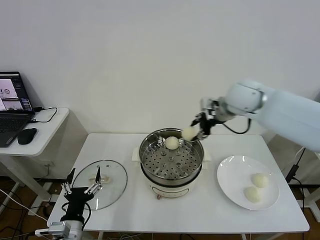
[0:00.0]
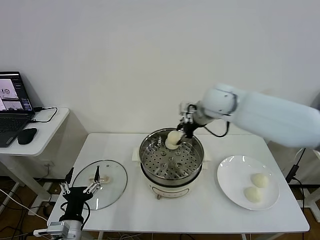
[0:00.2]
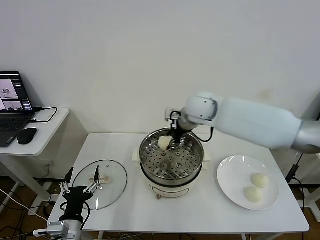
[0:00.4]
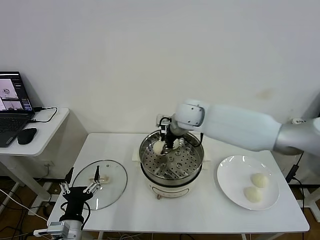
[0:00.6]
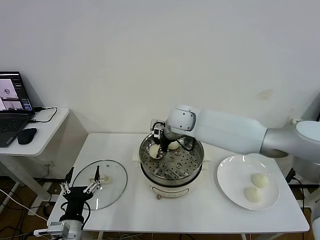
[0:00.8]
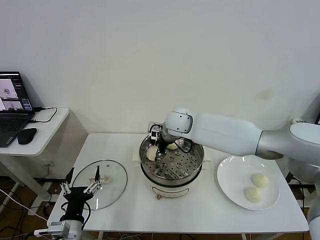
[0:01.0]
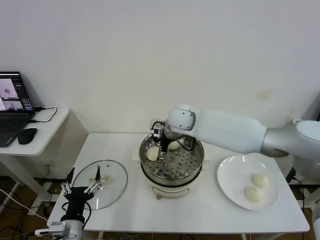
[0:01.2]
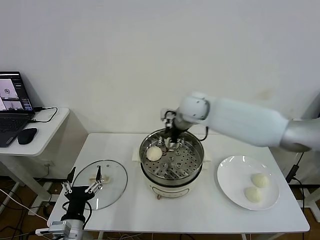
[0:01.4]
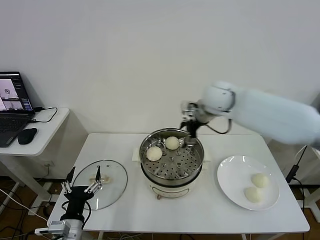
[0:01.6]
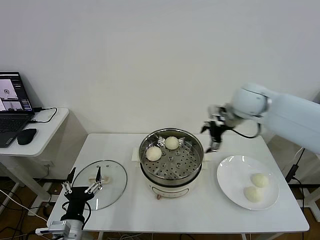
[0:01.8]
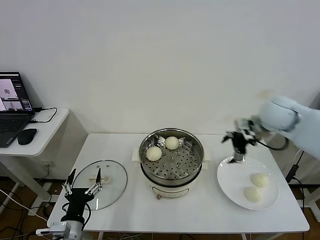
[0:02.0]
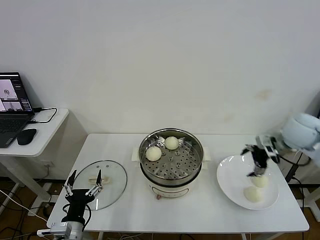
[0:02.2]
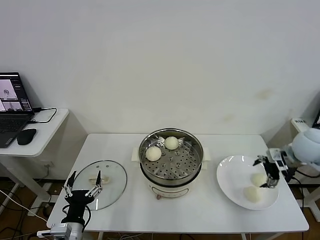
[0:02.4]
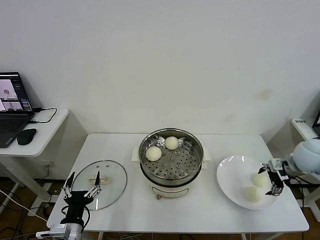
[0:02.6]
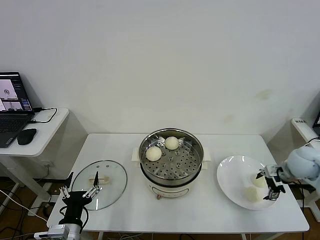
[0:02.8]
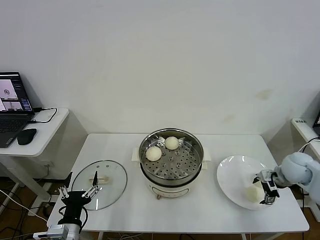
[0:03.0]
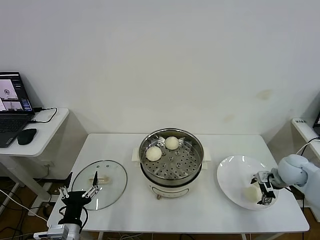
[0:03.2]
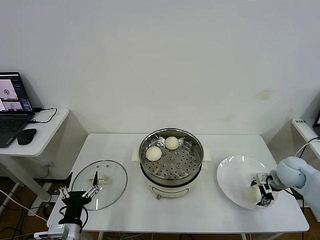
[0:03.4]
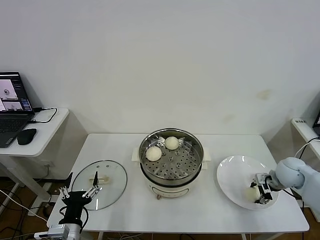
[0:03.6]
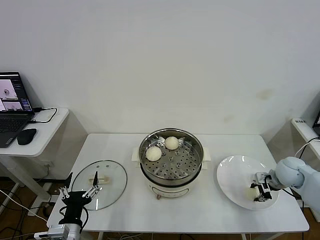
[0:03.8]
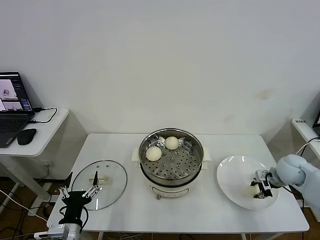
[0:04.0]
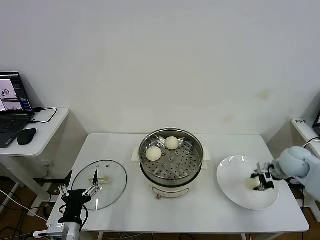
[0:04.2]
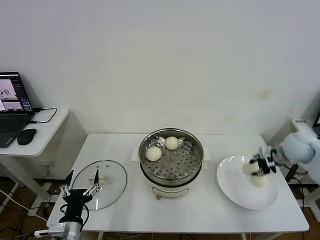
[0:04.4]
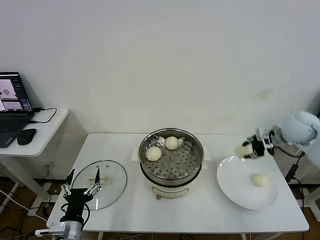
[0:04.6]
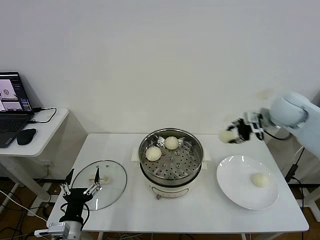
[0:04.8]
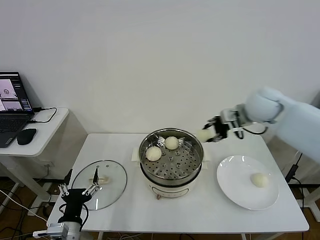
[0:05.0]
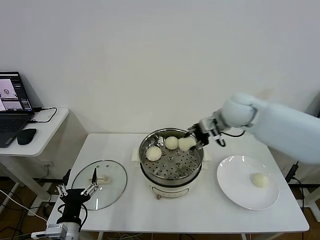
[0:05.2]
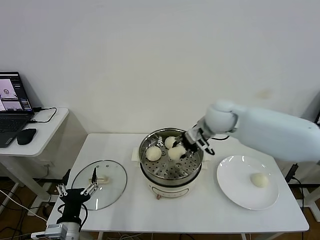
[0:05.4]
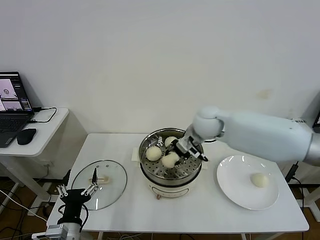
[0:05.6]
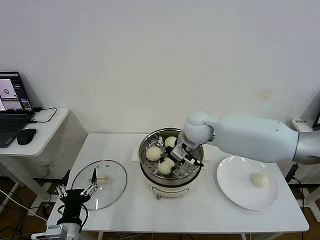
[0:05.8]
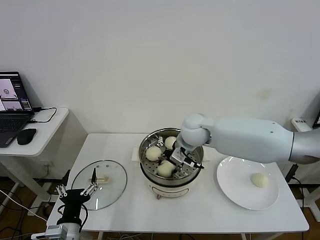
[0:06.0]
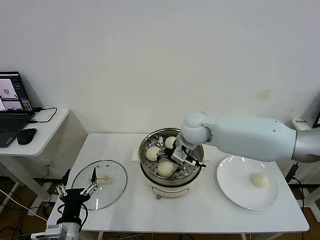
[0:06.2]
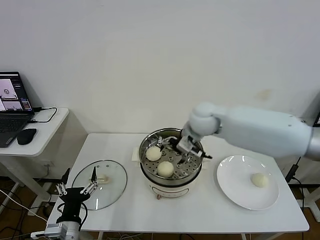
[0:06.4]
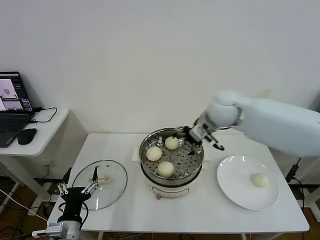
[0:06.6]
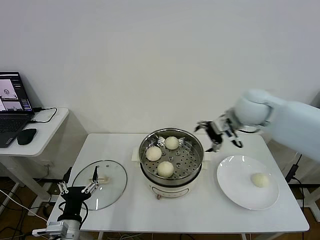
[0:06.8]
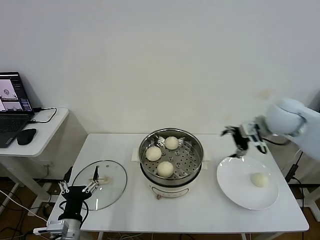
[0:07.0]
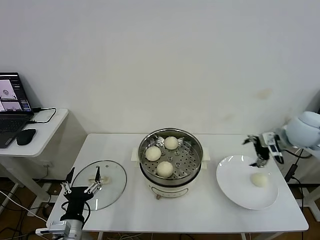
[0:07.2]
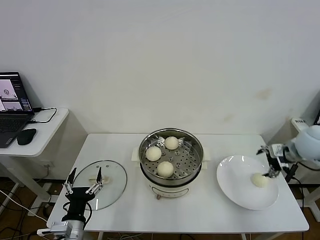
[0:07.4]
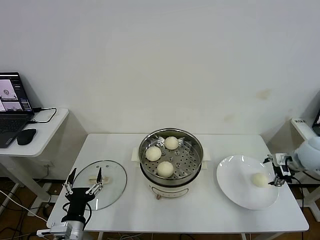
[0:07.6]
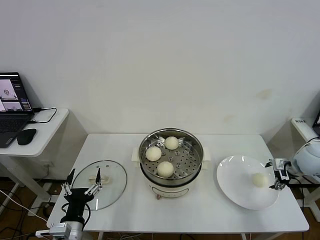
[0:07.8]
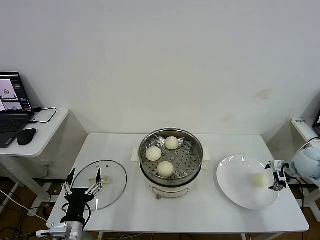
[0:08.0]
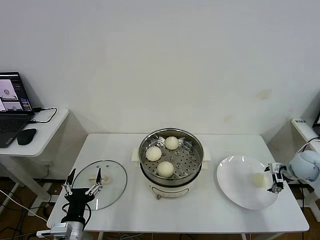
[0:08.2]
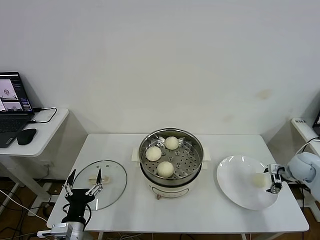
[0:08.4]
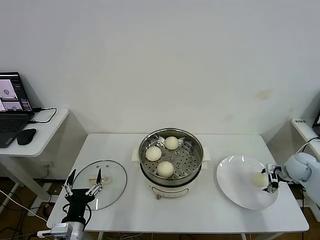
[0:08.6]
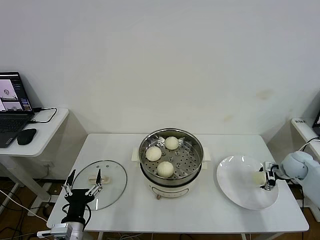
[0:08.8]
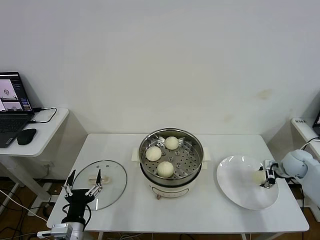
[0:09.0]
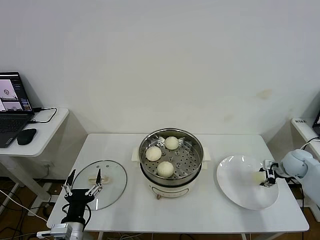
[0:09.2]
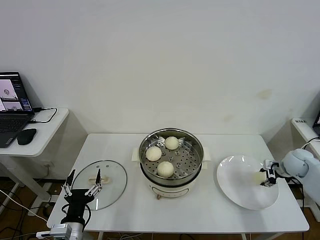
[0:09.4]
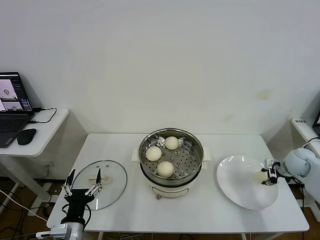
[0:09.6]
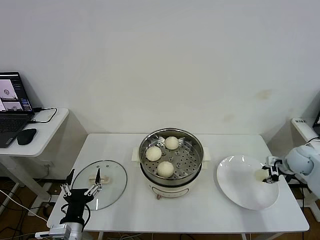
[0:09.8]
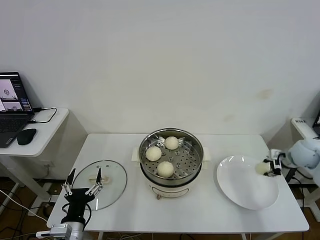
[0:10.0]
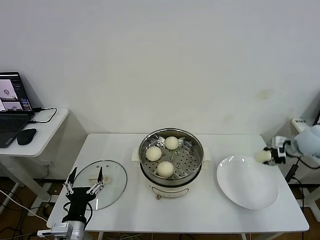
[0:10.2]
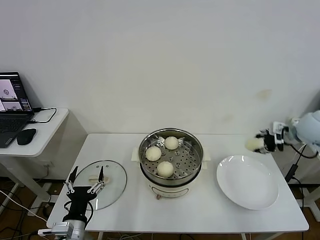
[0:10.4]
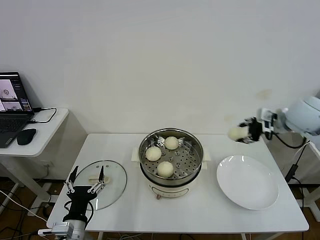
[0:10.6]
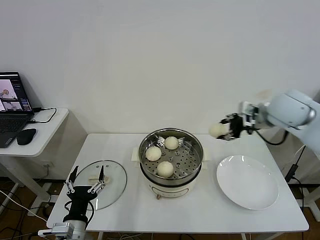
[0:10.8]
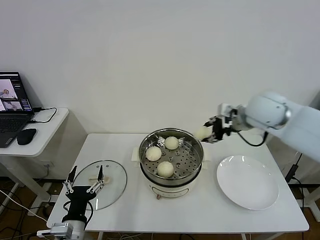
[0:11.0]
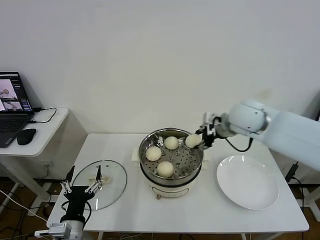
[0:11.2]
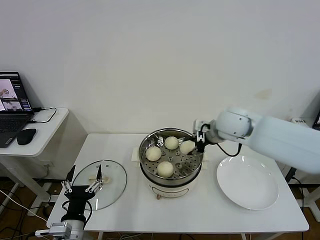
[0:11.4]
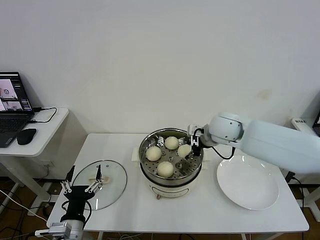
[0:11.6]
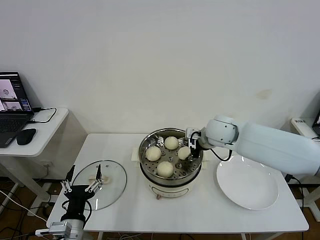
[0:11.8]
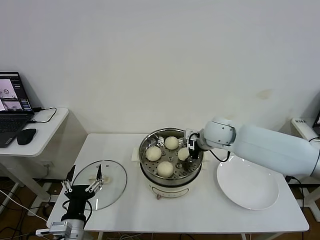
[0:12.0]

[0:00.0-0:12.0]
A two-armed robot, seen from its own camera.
Step, 0:01.2 to 0:03.6: Grasp the baozi in the plate with right gripper.
Step, 0:03.8 to 0:06.2: Place the baozi on the steamer with right gripper.
Step, 0:06.4 to 0:09.2: Grasp the baozi in the plate with right gripper.
0:00.0 to 0:01.6: The right gripper travels to the left and back again, roughly 15 cm each way, and opens up.
0:01.6 to 0:03.0: The right gripper travels to the right, downward and backward by some 35 cm.
0:03.0 to 0:04.4: The right gripper travels upward by roughly 10 cm, and closes.
0:04.4 to 0:06.0: The right gripper is displaced to the left by about 35 cm, and opens up.
0:06.0 to 0:07.6: The right gripper moves to the right, about 35 cm, and opens.
0:07.6 to 0:09.0: The right gripper is displaced downward by about 10 cm, and closes.
0:09.0 to 0:10.4: The right gripper travels upward by some 20 cm, and closes.
0:10.4 to 0:12.0: The right gripper is displaced to the left by approximately 25 cm.

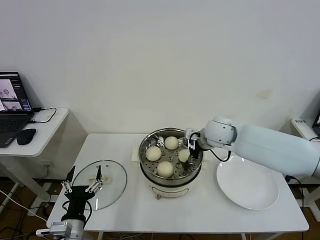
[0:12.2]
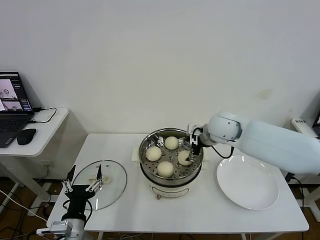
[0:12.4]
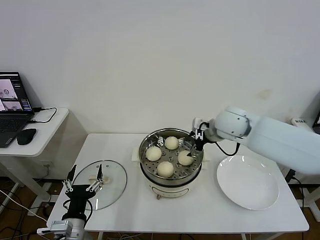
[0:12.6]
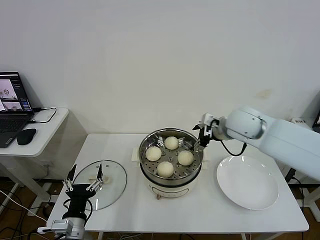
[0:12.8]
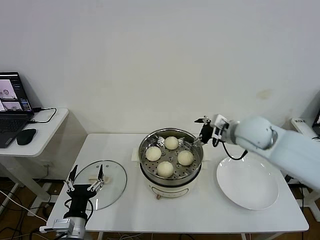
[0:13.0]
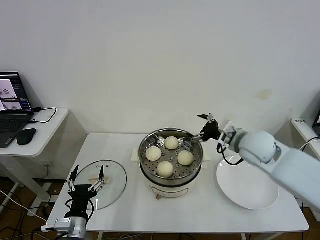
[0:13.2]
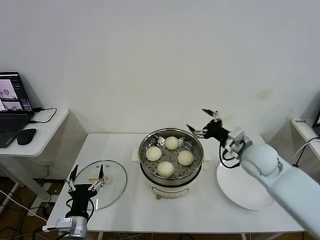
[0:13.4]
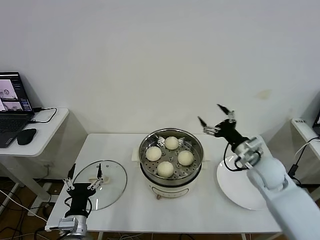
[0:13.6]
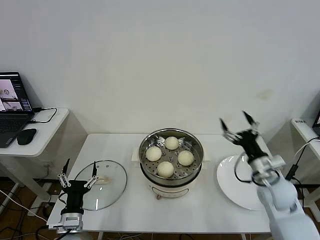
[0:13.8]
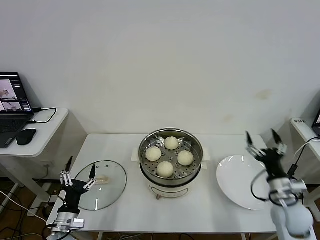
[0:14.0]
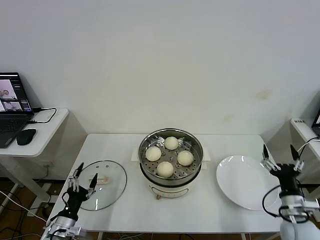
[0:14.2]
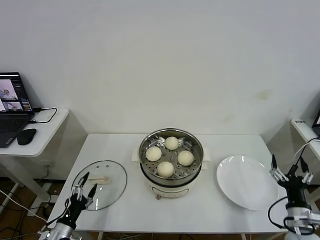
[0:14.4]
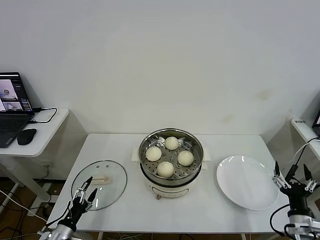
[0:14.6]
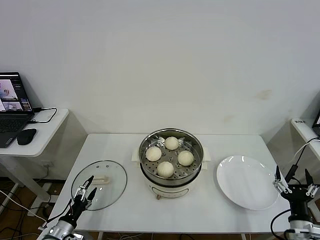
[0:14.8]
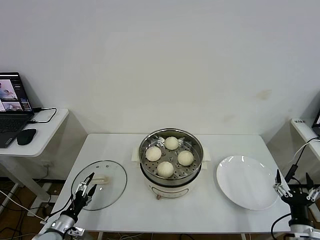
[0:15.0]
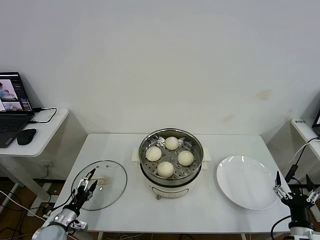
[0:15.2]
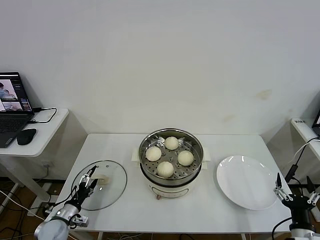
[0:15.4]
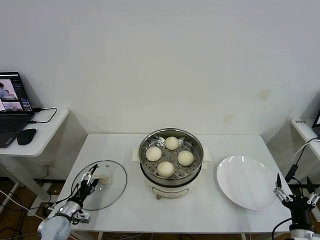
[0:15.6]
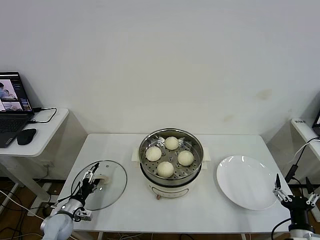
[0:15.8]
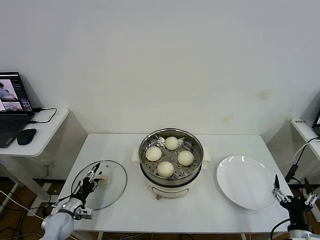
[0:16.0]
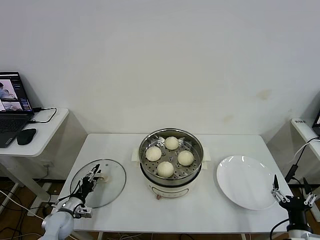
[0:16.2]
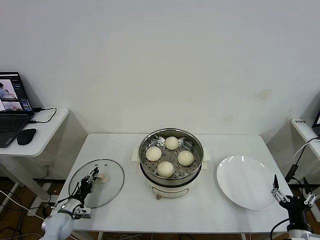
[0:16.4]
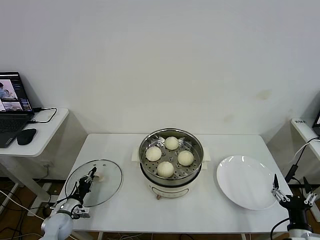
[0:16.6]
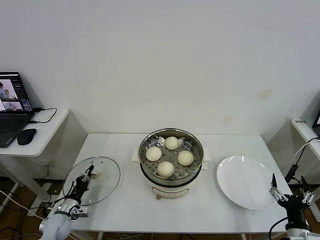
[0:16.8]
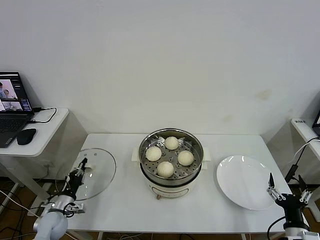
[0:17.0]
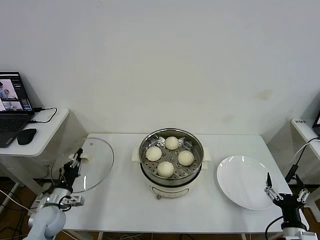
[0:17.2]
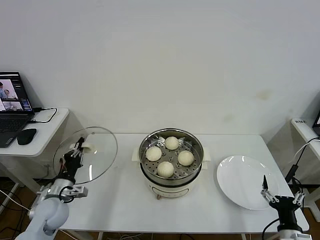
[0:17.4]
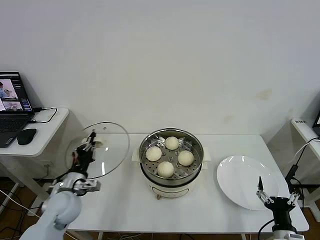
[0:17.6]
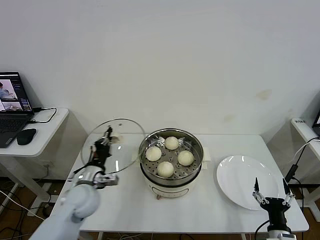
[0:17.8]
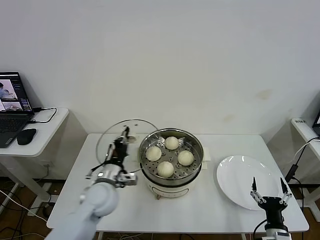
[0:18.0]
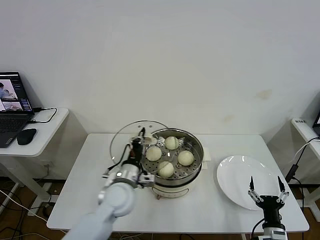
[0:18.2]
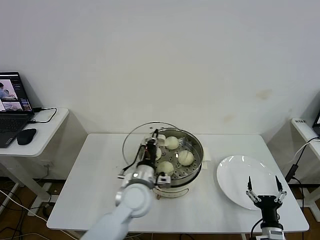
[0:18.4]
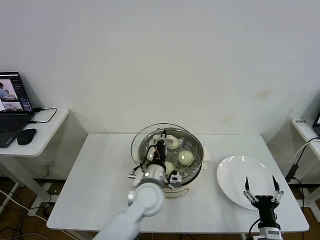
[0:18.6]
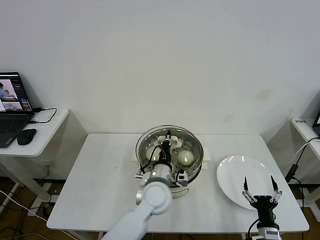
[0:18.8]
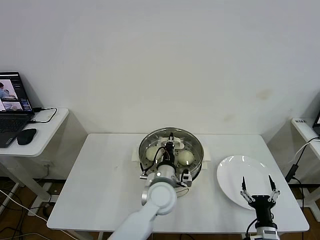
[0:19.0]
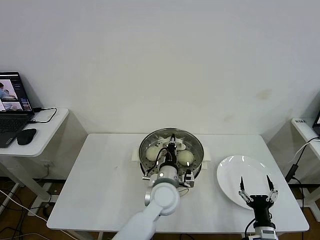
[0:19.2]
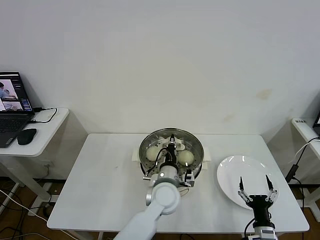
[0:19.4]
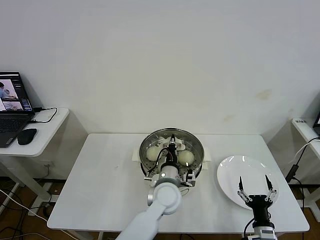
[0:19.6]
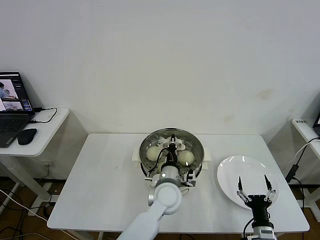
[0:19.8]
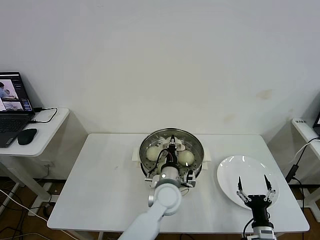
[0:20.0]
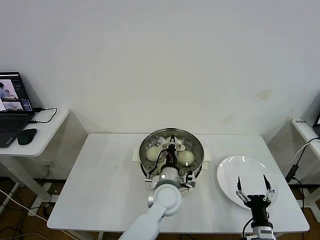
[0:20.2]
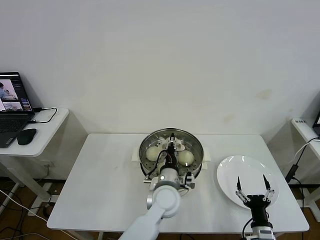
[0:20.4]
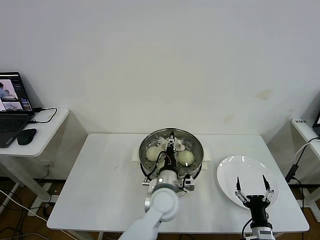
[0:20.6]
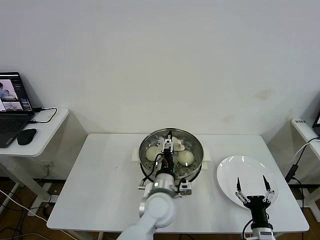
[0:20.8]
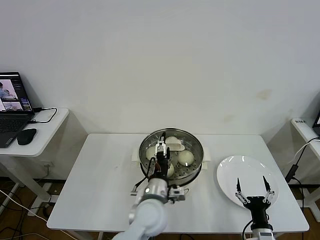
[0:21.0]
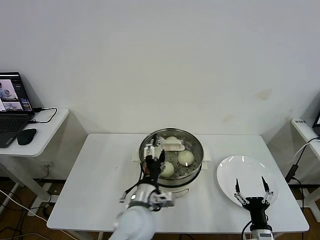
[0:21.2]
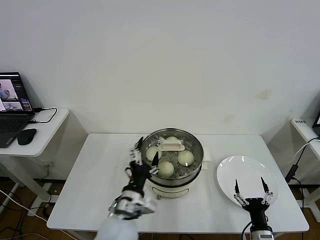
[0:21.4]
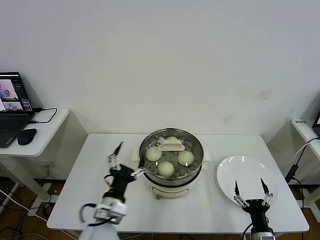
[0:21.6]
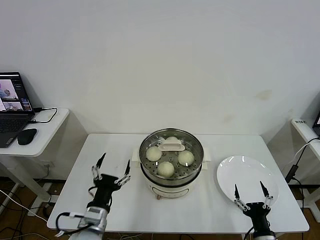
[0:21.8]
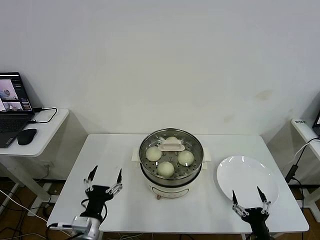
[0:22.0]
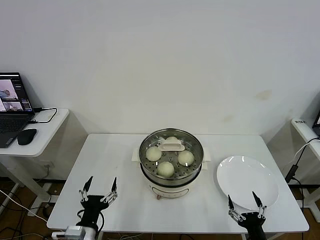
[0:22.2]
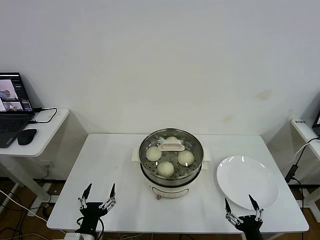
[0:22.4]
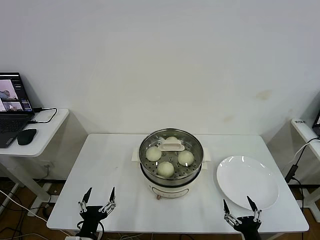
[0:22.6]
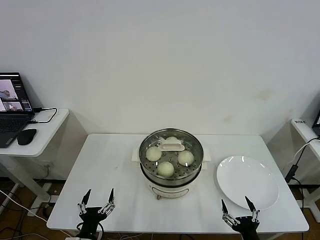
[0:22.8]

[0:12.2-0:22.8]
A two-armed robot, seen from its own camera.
Step, 0:12.6 to 0:16.6: Grasp the pot lid with left gripper.
Step, 0:16.8 to 0:21.0: Place the pot lid on the steamer with left gripper.
0:12.2 to 0:13.8: The right gripper travels backward, to the right and downward by approximately 25 cm. Meanwhile the left gripper shifts by some 5 cm.
0:13.8 to 0:15.2: The right gripper shifts approximately 20 cm backward and downward, while the left gripper is displaced to the left and downward by approximately 15 cm.
0:15.2 to 0:16.8: The left gripper shifts about 5 cm forward, and closes up.
0:16.8 to 0:18.2: The right gripper shifts by approximately 5 cm. The left gripper is displaced to the right and upward by some 35 cm.
0:18.2 to 0:19.8: The left gripper moves to the right, about 15 cm.
0:19.8 to 0:21.2: The left gripper moves backward and to the left, some 10 cm, and opens.
0:21.2 to 0:22.8: The left gripper moves to the left, backward and downward, approximately 25 cm. The right gripper moves backward, some 5 cm.
